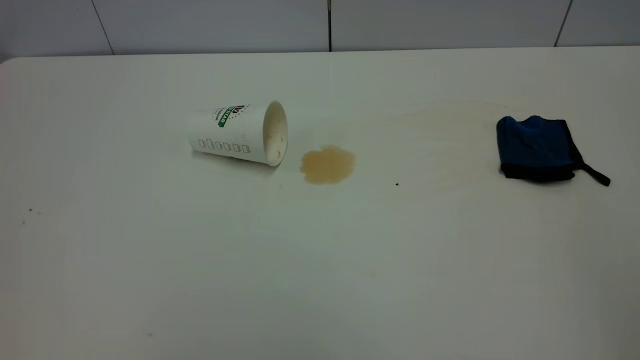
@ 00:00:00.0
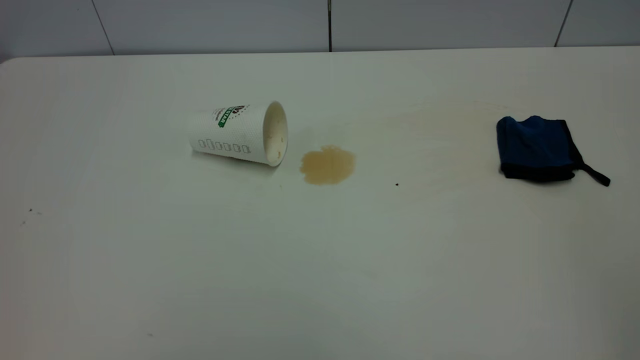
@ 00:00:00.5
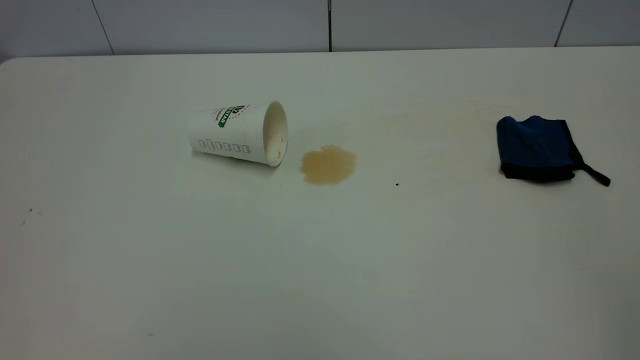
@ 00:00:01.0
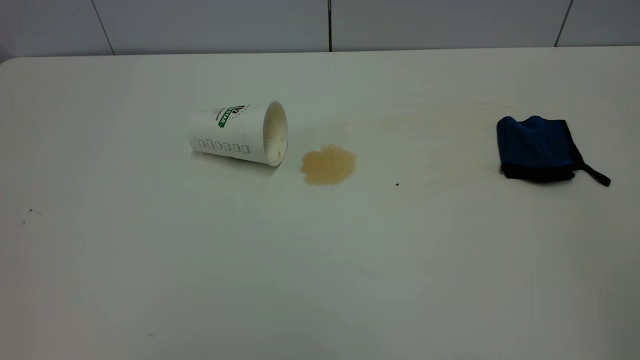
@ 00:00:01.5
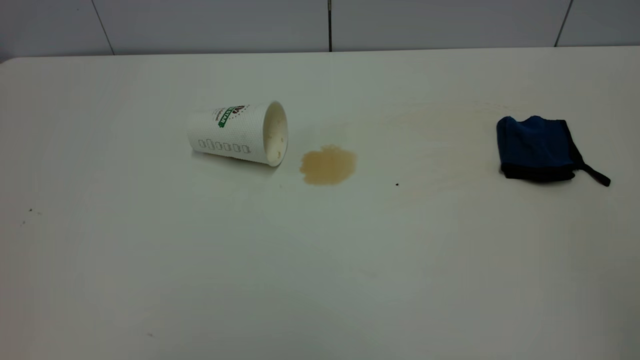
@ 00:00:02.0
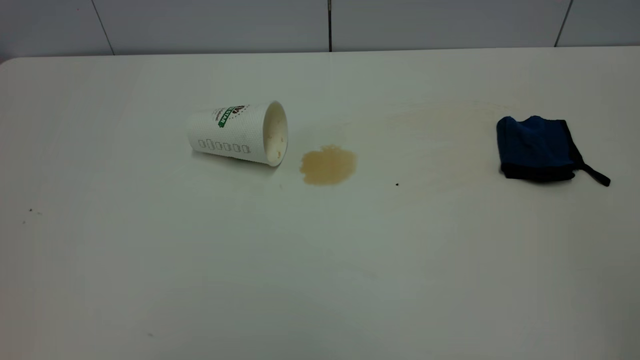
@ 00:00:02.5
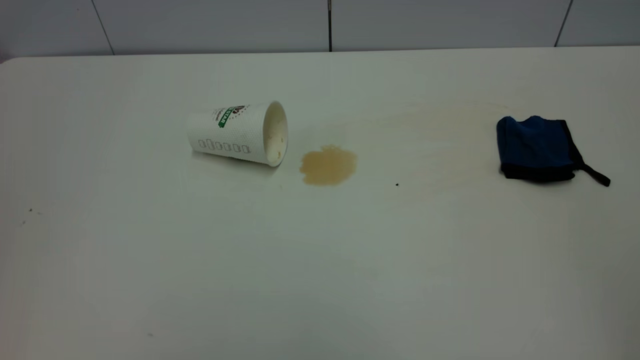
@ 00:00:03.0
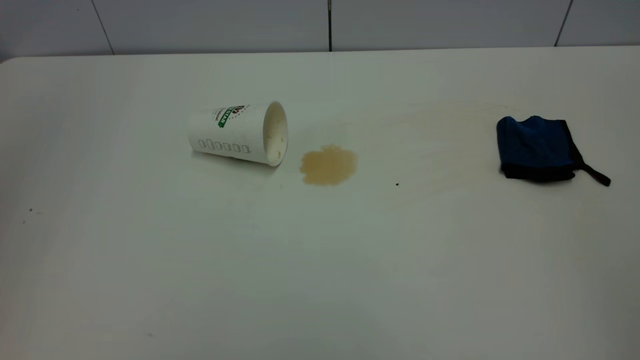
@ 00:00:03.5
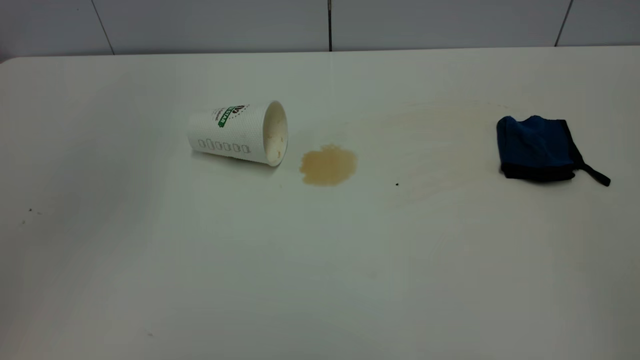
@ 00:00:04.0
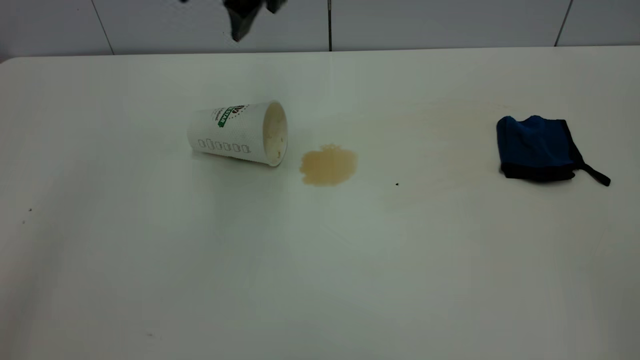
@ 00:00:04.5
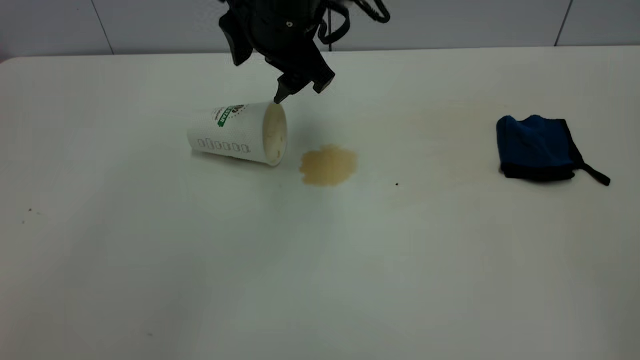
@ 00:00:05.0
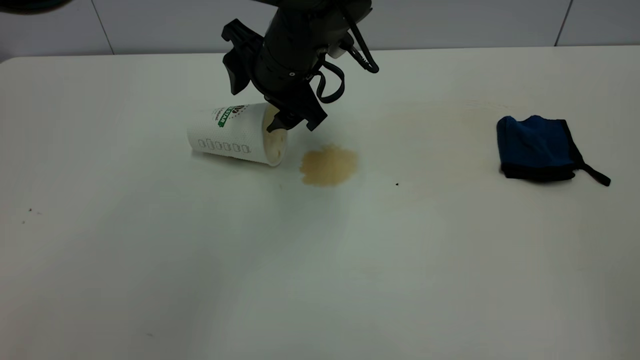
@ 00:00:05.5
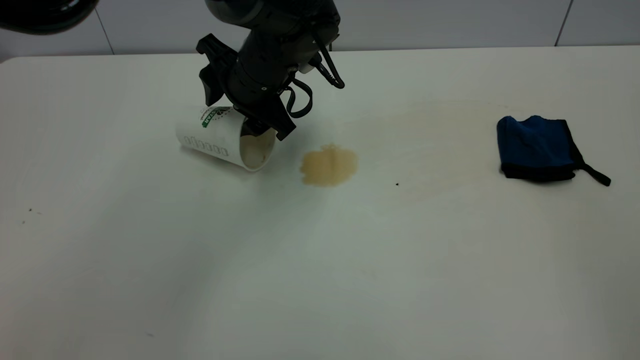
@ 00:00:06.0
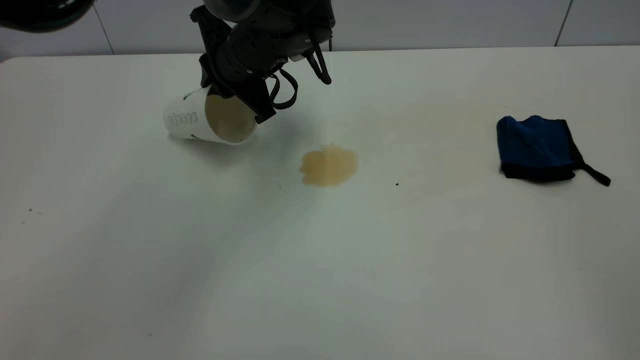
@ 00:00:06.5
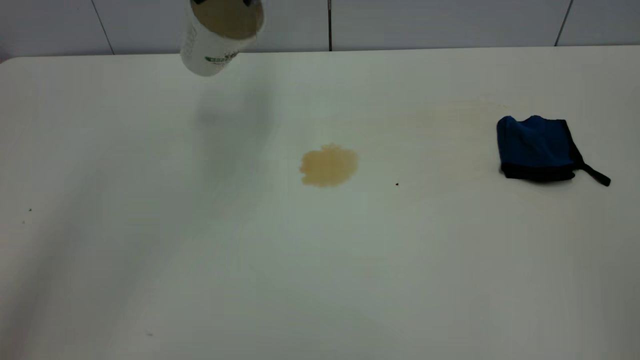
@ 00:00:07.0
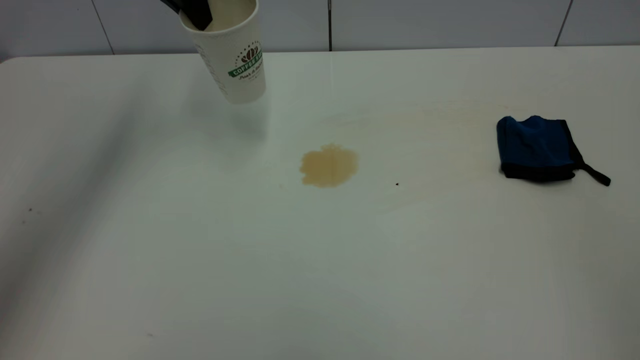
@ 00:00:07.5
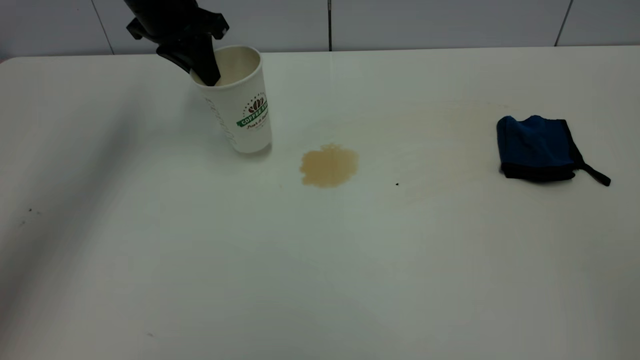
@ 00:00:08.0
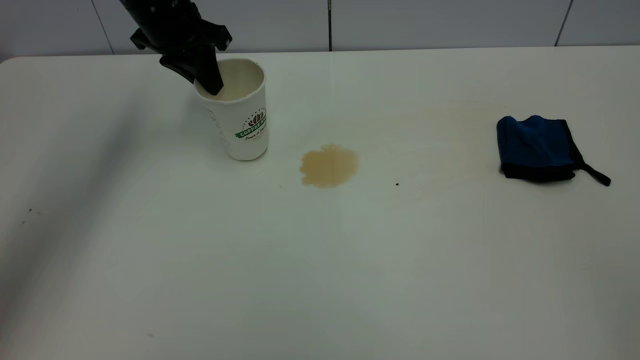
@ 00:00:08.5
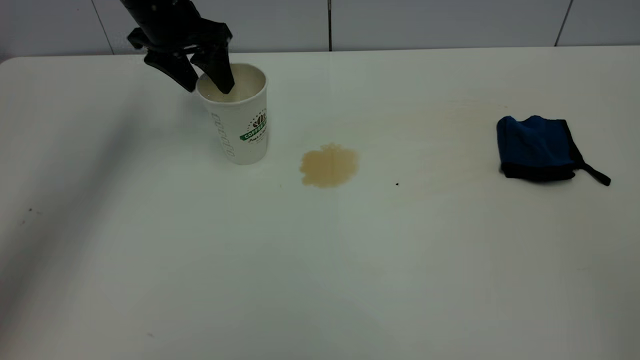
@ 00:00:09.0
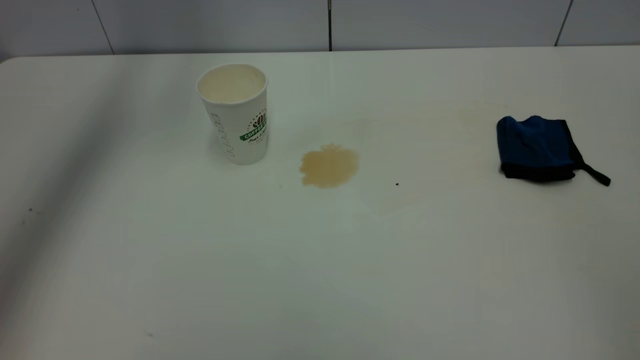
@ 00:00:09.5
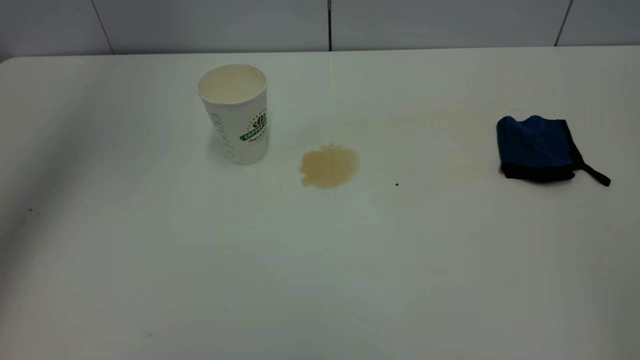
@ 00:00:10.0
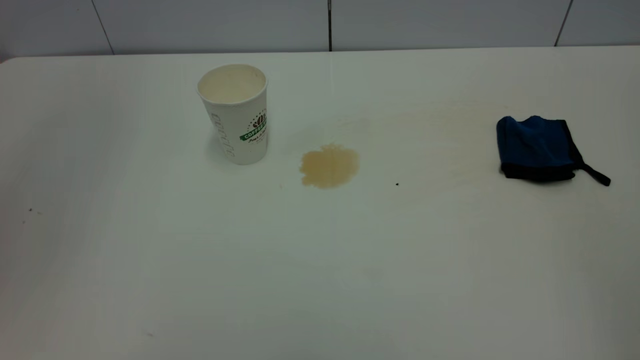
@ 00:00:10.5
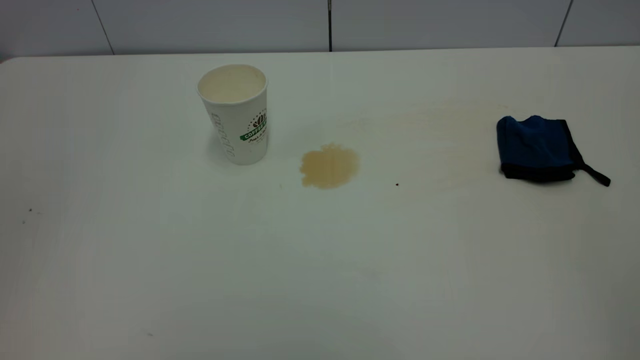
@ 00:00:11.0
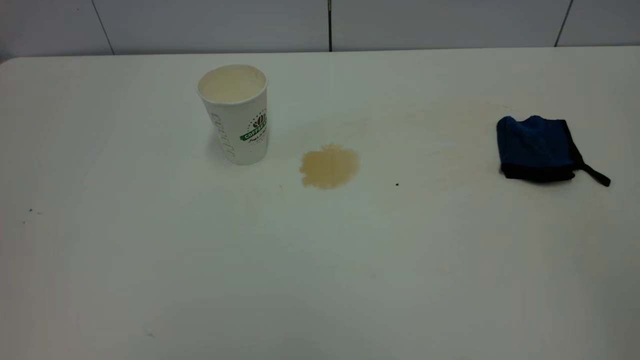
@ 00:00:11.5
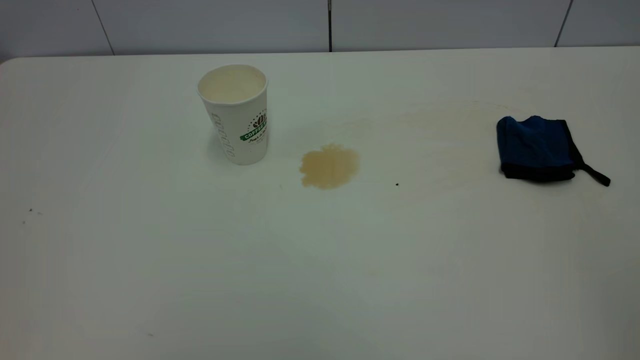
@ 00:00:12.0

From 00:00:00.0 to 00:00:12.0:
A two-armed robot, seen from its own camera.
Task of the whole recording: the left gripper pick up the fallen cup and place it upright, the right gripper grasp the blue rag and wipe the tea stain on the table, the right gripper put the blue rag back in its original position.
Step, from 00:00:00.0 to 00:00:09.0: Stand the paper cup upright.
From 00:00:00.0 to 00:00:02.0: Both grippers stay about where they are.
From 00:00:04.0 to 00:00:06.0: The left gripper travels downward, to the right and forward by some 30 cm.
From 00:00:06.0 to 00:00:08.0: The left gripper shifts some 15 cm to the left, upward and forward, and closes.
From 00:00:08.0 to 00:00:10.0: The left gripper is displaced upward and backward by roughly 30 cm, and opens.
From 00:00:10.0 to 00:00:12.0: The left gripper moves backward, some 40 cm.

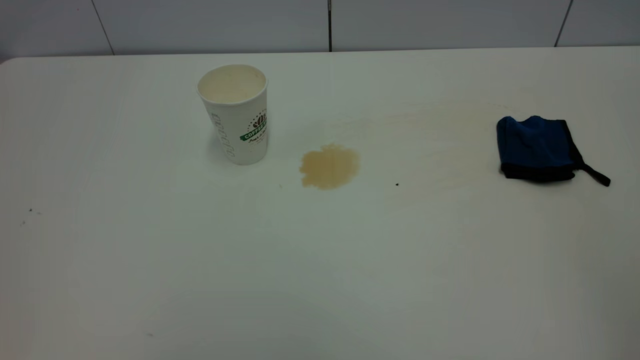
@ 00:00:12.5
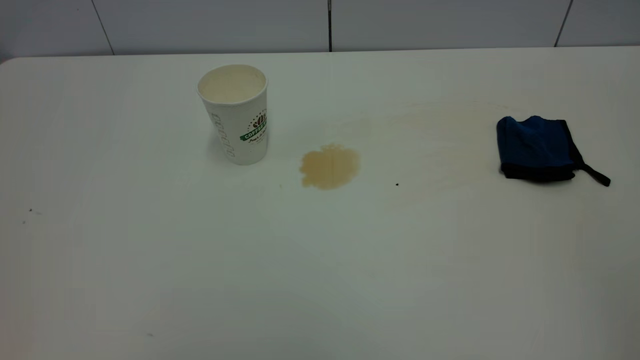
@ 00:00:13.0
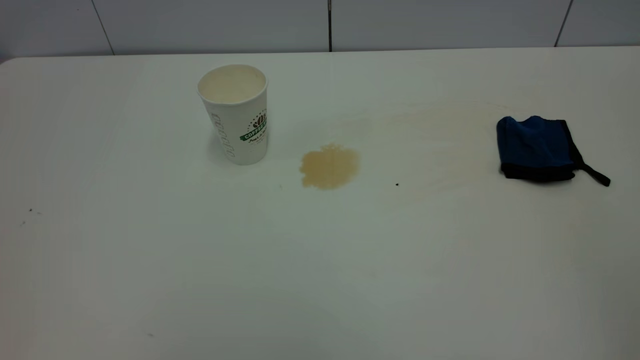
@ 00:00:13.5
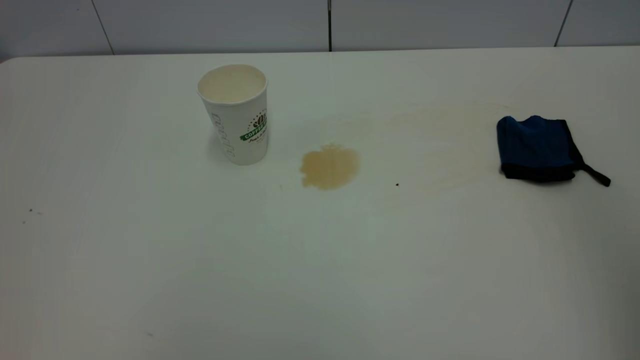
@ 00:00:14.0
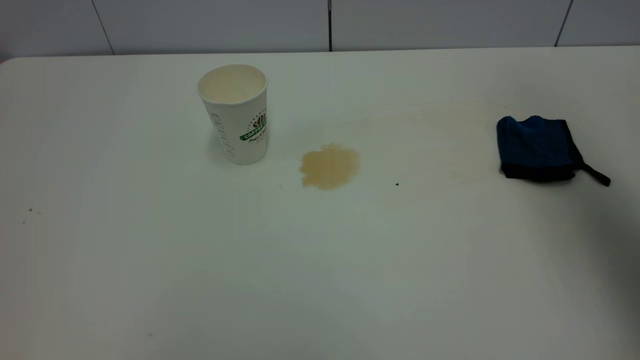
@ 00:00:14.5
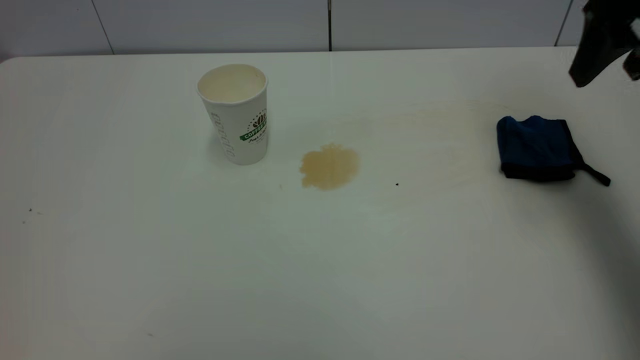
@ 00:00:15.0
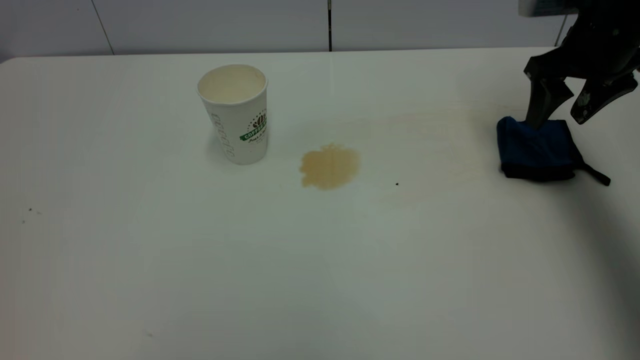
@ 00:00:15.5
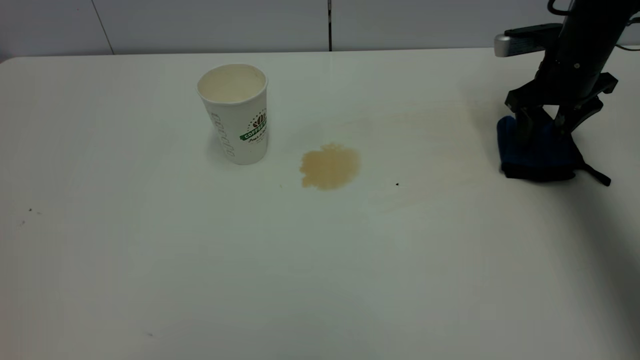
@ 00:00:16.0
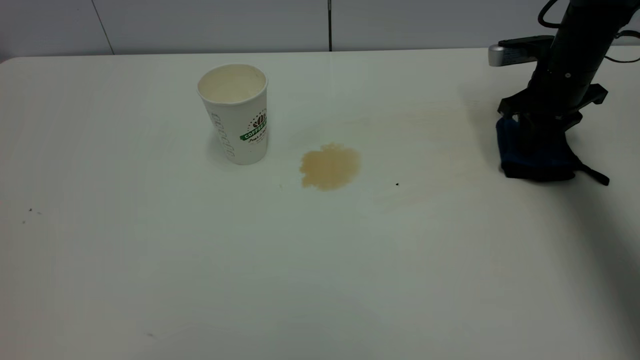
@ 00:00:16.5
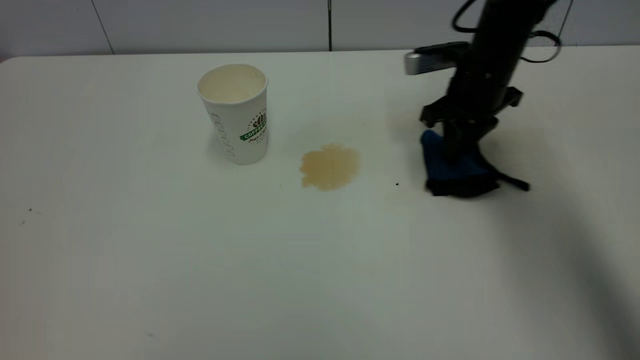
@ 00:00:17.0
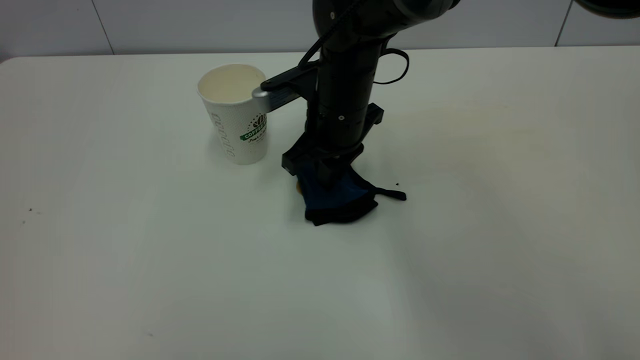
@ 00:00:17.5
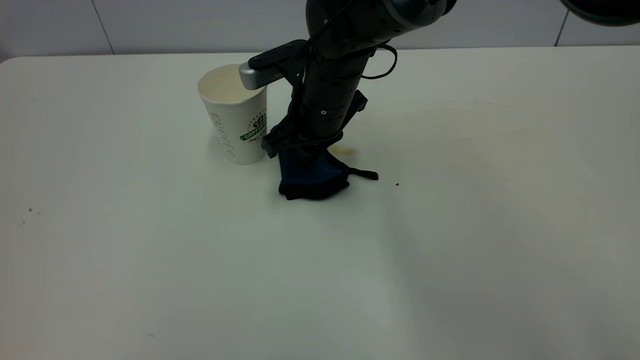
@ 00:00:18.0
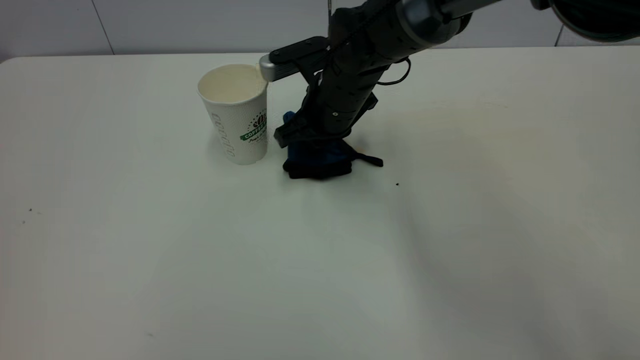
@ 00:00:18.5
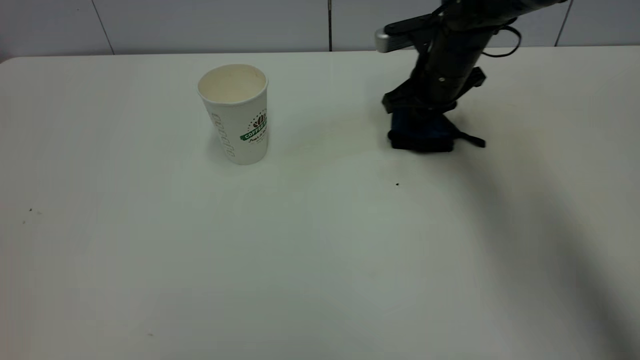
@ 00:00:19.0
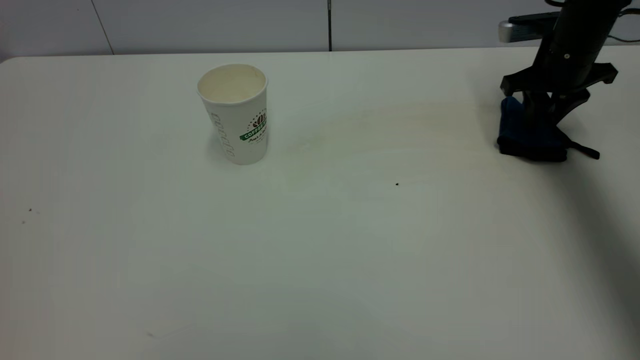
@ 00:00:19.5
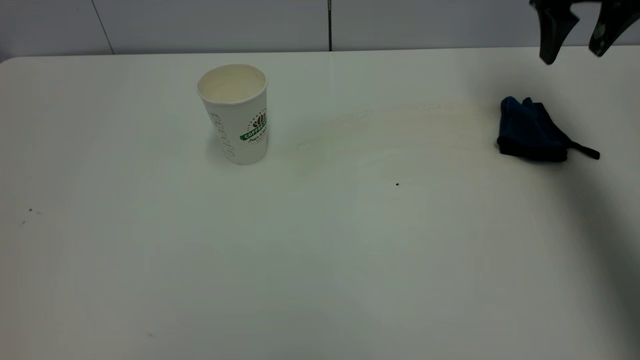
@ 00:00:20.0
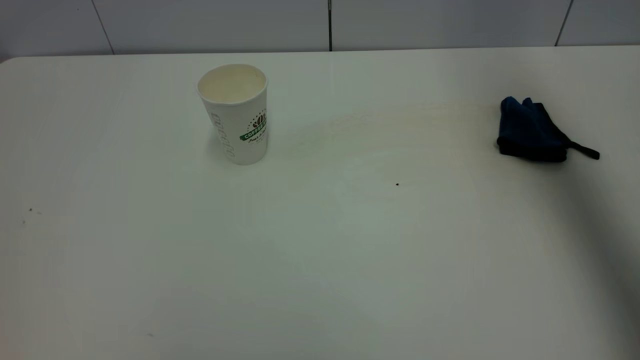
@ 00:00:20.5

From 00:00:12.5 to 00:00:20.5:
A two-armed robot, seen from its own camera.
Task of the whole recording: the left gripper pick up the fallen cup and place it upright, the right gripper grasp the blue rag and wipe the tea stain on the table, the right gripper put the blue rag back in its original position.
Step, from 00:00:12.5 to 00:00:19.5: Wipe the stains off the table with a rag.
From 00:00:12.5 to 00:00:14.5: The right gripper moves forward, some 30 cm, and opens.
From 00:00:14.5 to 00:00:16.5: The right gripper travels downward and forward by about 35 cm, and closes up.
From 00:00:16.5 to 00:00:18.5: The right gripper travels to the left by roughly 25 cm.
From 00:00:18.5 to 00:00:20.5: The right gripper heads upward and to the right, covering some 40 cm, and opens up.
